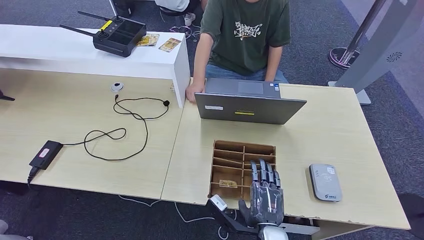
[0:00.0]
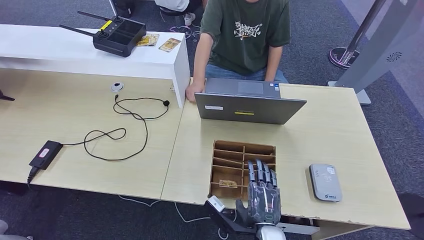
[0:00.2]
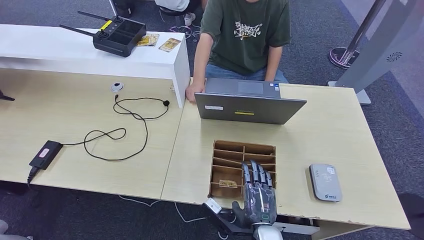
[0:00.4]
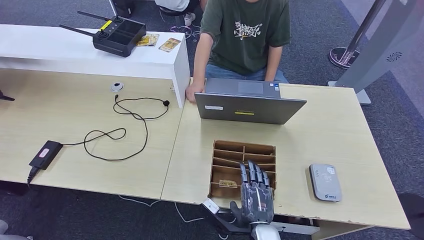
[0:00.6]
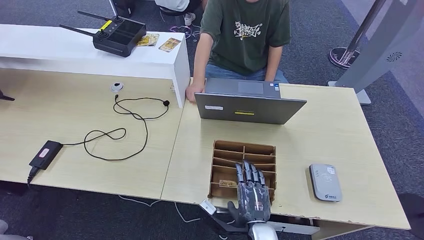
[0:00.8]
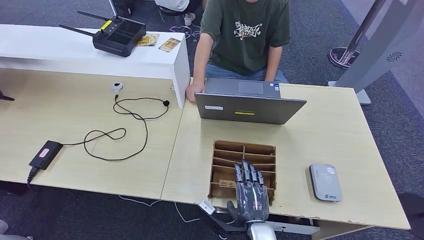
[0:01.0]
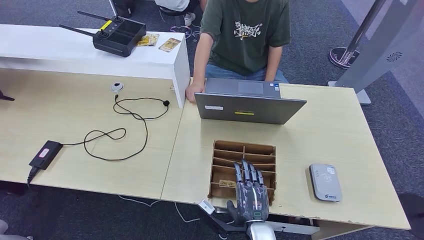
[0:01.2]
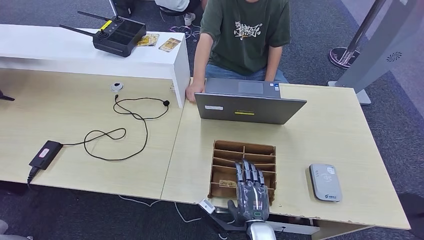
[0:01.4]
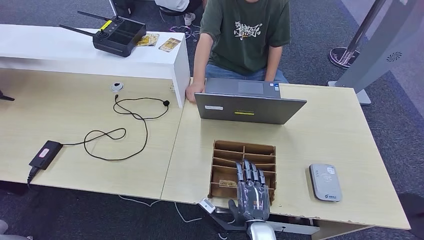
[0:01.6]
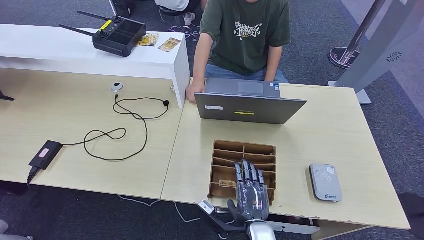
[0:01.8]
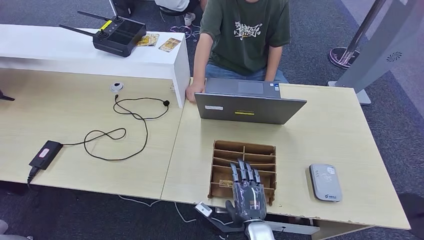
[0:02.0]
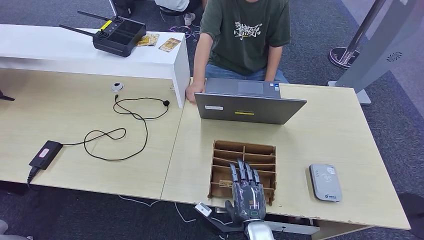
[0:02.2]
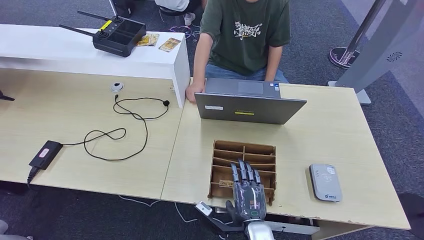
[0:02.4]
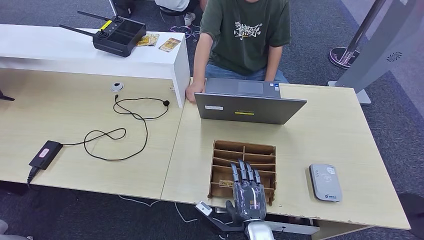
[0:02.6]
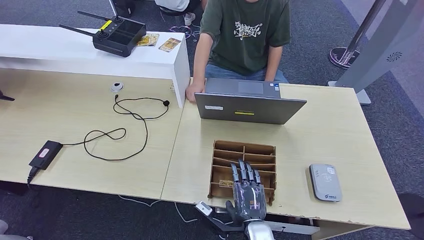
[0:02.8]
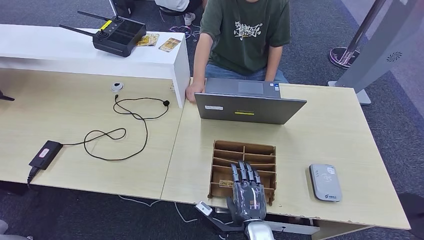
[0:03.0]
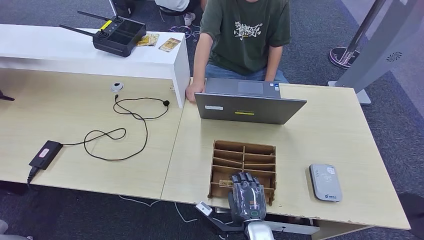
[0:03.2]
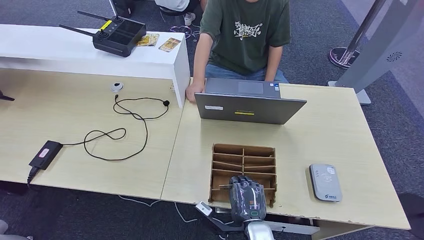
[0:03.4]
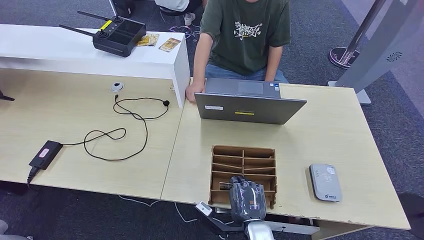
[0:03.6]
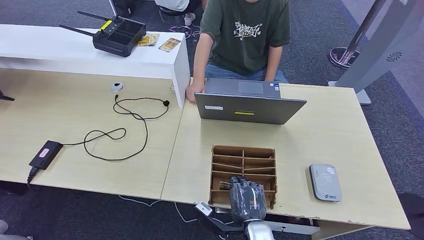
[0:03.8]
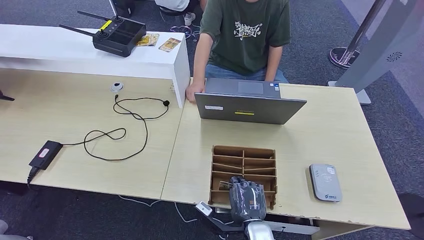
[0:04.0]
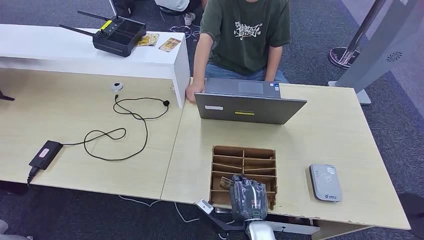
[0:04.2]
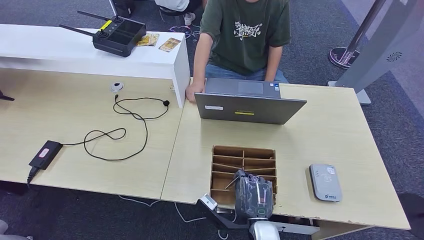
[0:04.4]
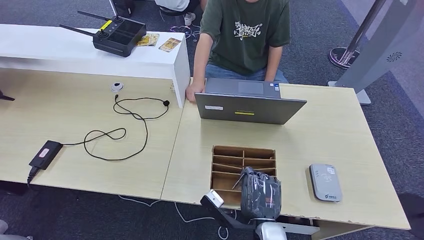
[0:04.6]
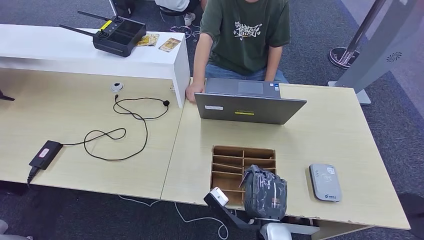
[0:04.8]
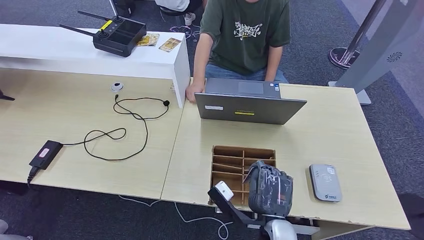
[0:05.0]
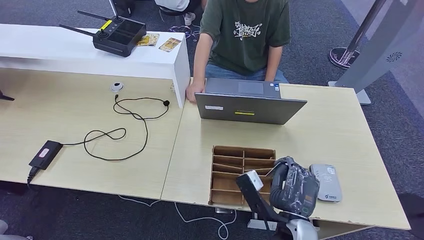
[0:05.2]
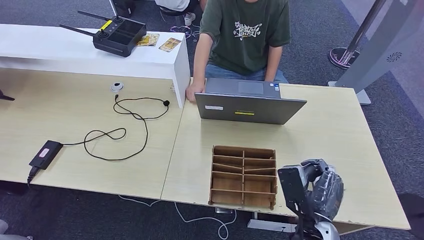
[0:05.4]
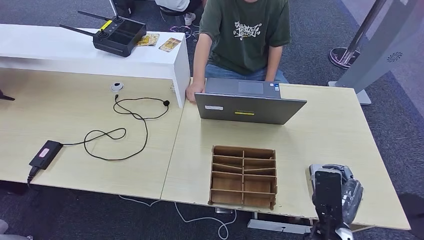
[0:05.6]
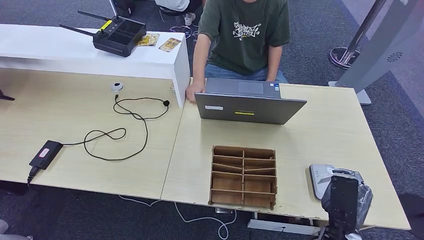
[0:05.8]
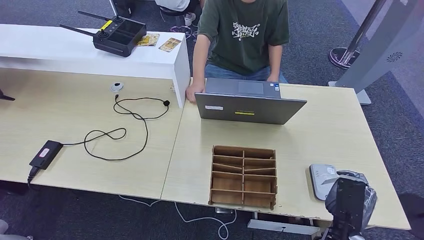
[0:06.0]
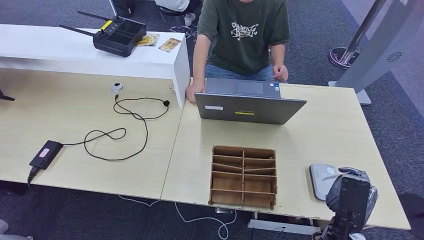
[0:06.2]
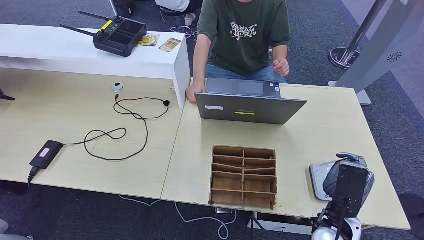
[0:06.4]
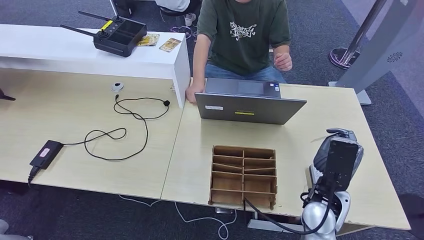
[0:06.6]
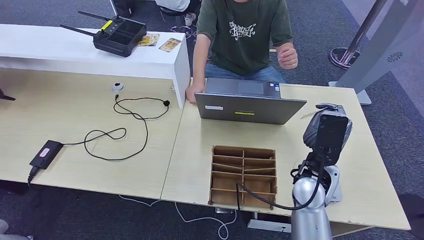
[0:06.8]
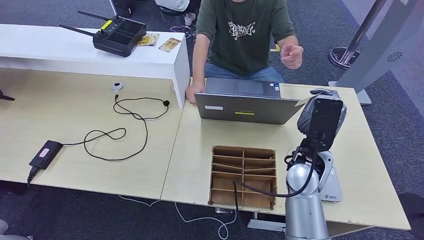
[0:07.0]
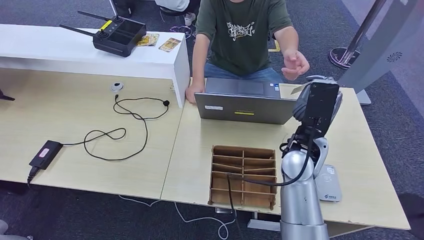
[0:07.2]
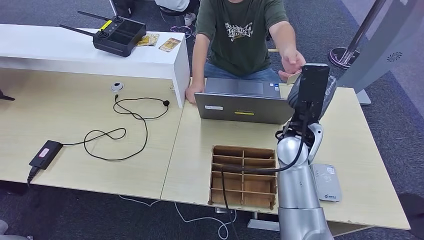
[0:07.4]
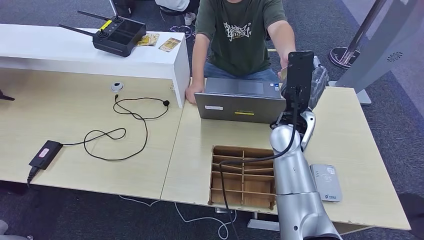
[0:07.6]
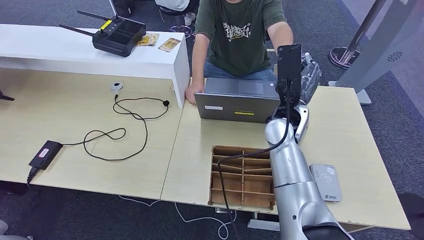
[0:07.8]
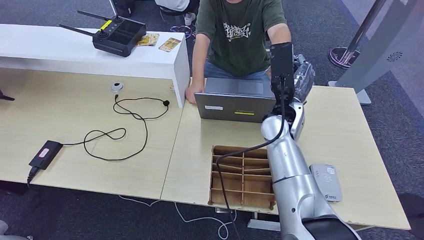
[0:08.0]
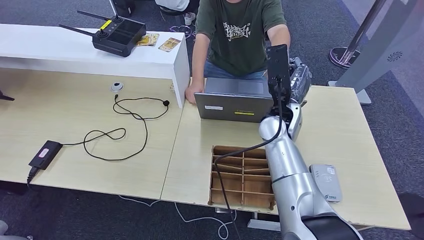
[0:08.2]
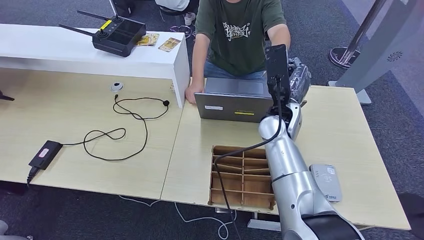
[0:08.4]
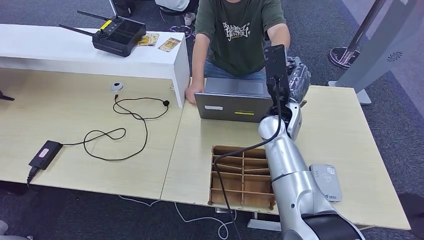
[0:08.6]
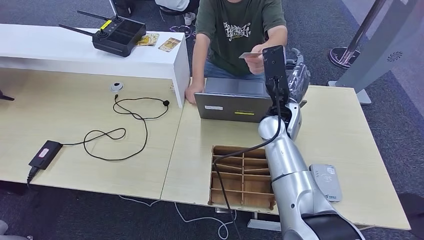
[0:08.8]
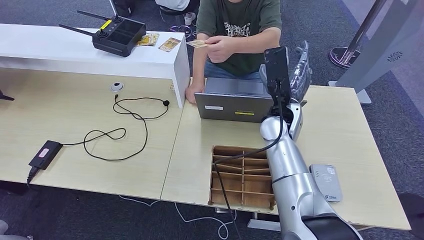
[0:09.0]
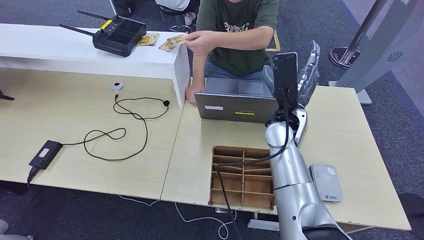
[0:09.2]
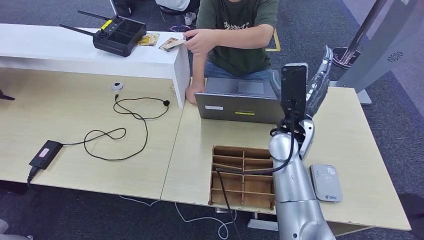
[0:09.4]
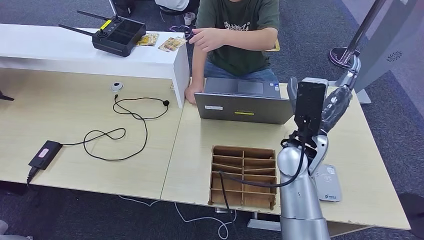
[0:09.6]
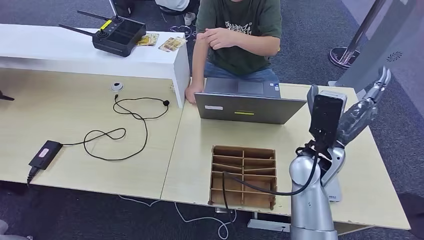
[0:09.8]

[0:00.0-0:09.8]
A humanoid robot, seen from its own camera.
Step, 0:03.4 to 0:06.0: Pick up the room key from the key card box.
Step, 0:06.4 to 0:09.6: Hand the room key to the person.
0:00.0 to 0:01.4: The hands move only a little.
0:01.4 to 0:04.2: Both hands stay about where they are.
0:04.2 to 0:05.6: The right hand goes about 10 cm to the right and upward.
0:05.6 to 0:07.0: The right hand heads forward and upward, covering some 20 cm.
0:07.0 to 0:08.4: The right hand moves forward, roughly 10 cm.
0:08.4 to 0:09.8: The right hand moves backward and to the right, roughly 10 cm.

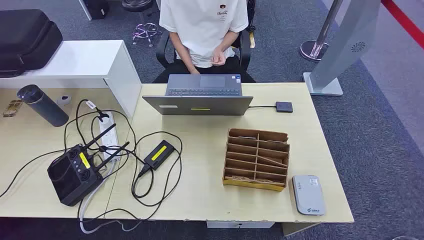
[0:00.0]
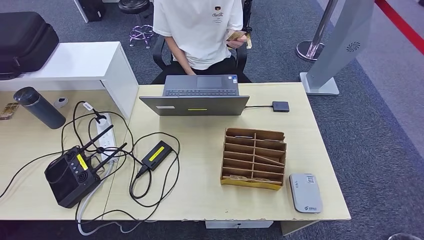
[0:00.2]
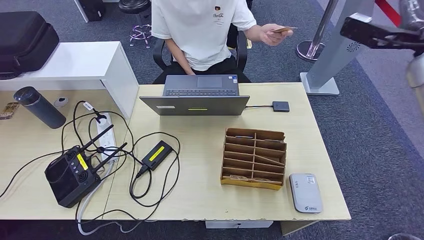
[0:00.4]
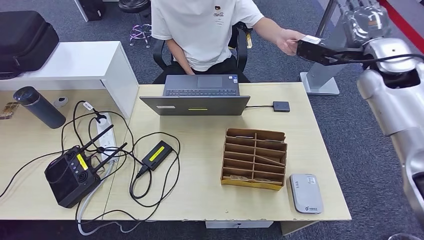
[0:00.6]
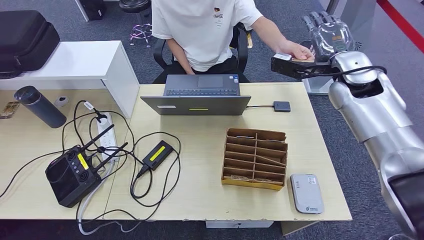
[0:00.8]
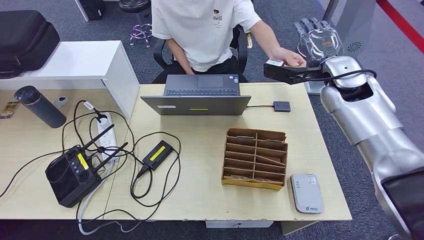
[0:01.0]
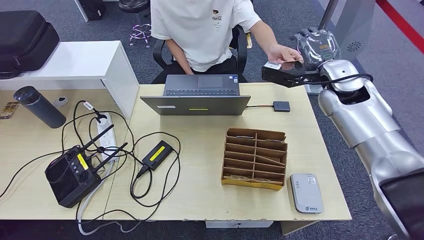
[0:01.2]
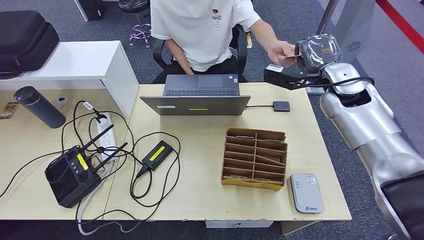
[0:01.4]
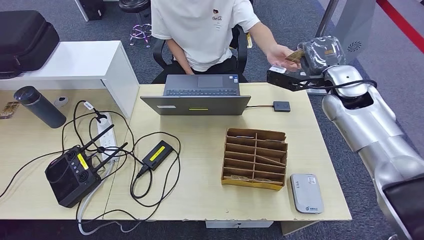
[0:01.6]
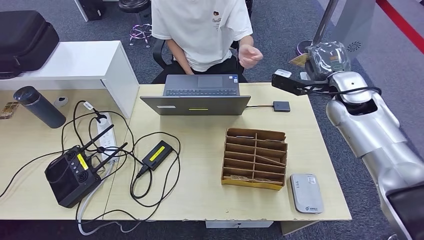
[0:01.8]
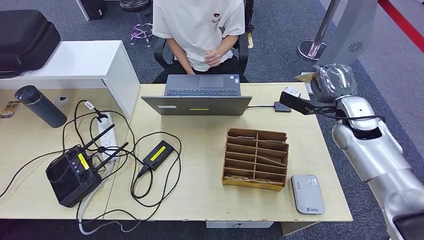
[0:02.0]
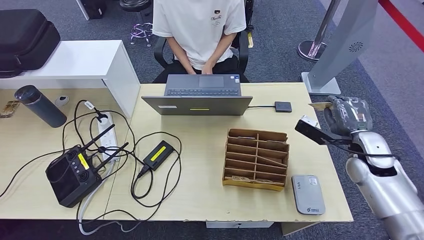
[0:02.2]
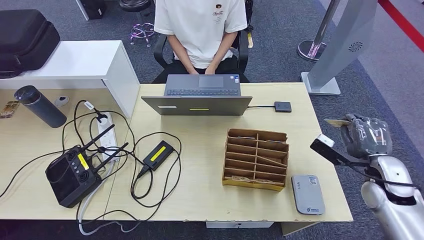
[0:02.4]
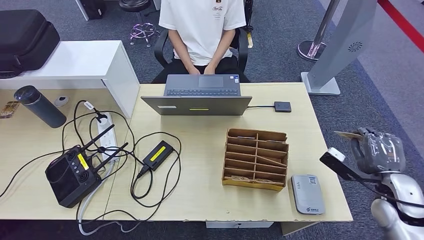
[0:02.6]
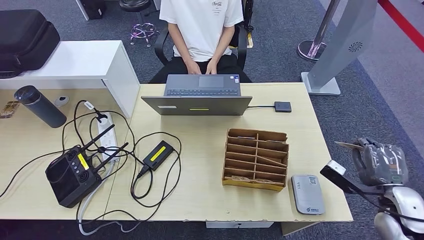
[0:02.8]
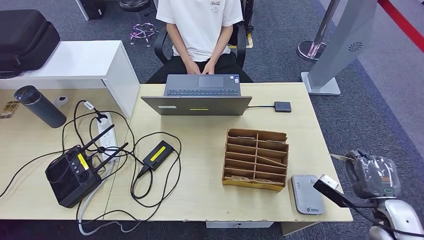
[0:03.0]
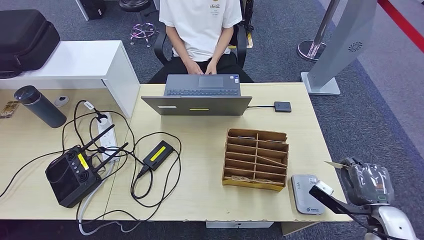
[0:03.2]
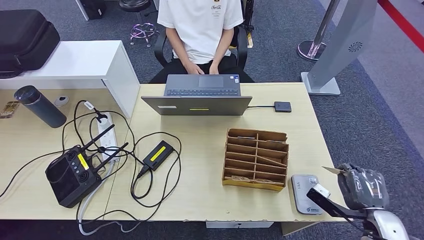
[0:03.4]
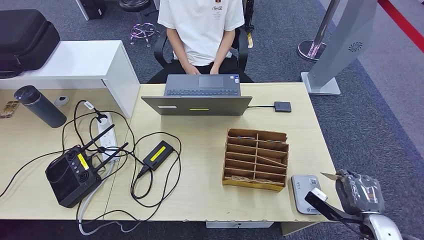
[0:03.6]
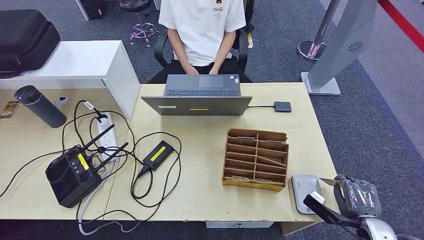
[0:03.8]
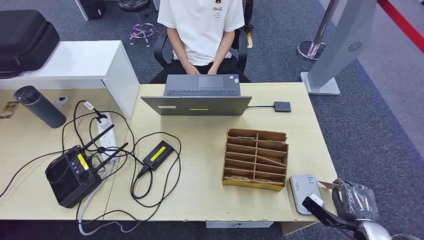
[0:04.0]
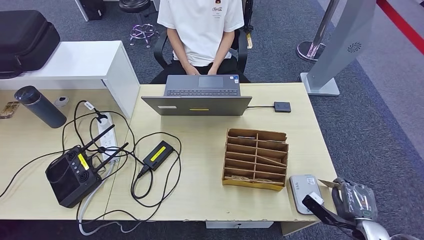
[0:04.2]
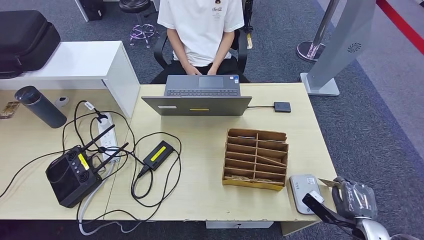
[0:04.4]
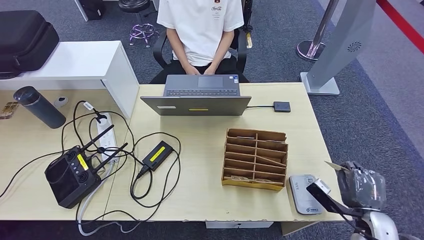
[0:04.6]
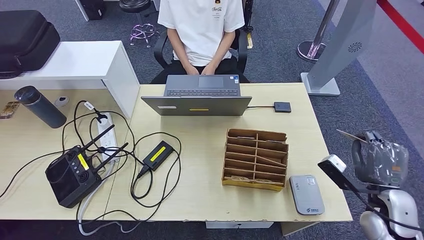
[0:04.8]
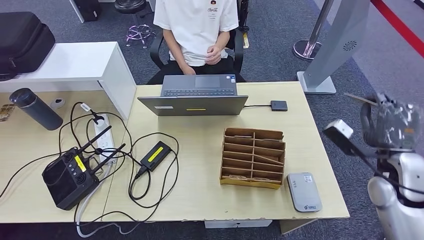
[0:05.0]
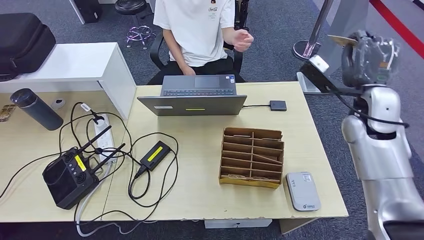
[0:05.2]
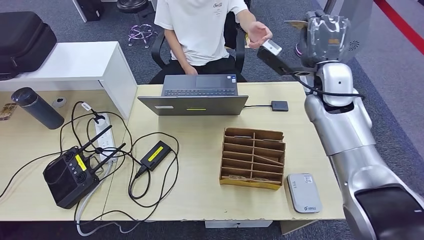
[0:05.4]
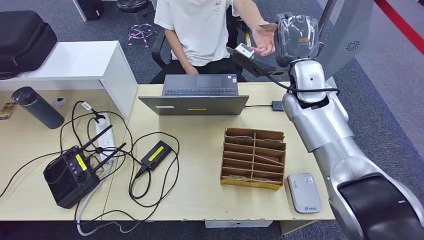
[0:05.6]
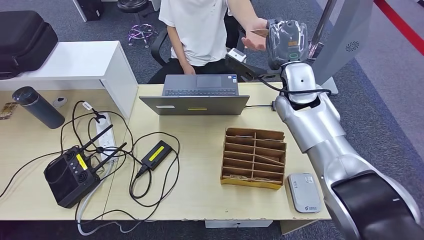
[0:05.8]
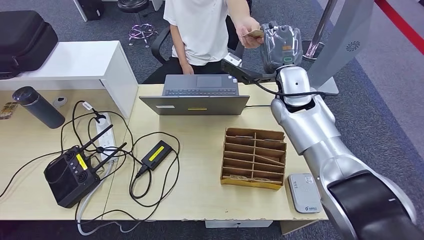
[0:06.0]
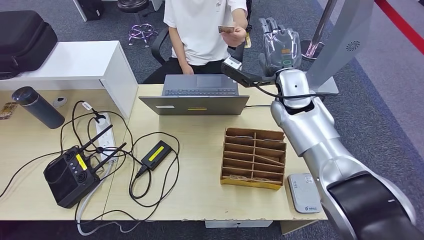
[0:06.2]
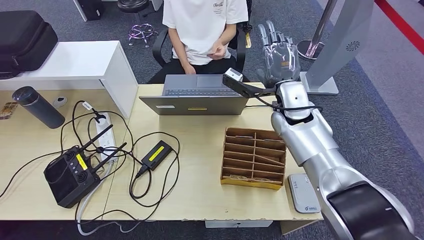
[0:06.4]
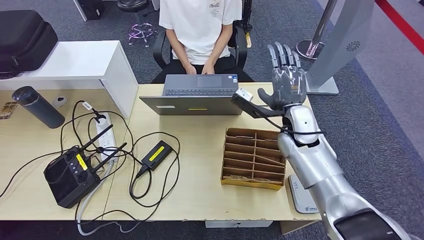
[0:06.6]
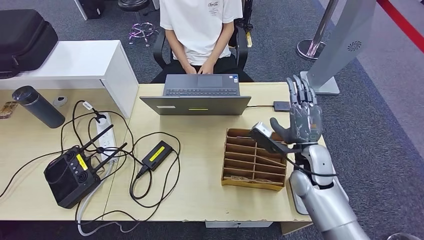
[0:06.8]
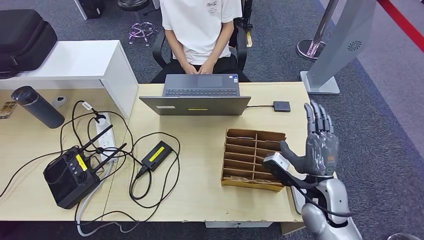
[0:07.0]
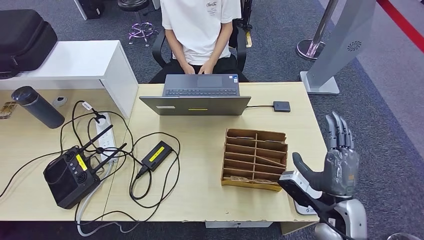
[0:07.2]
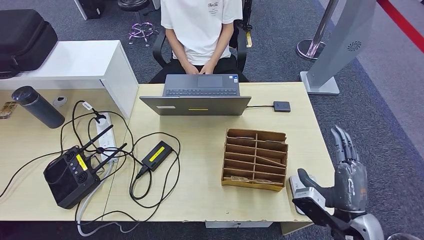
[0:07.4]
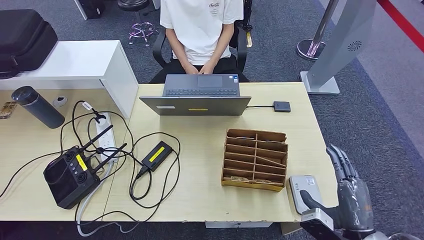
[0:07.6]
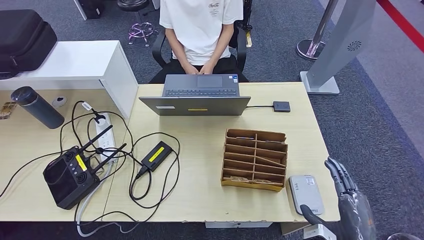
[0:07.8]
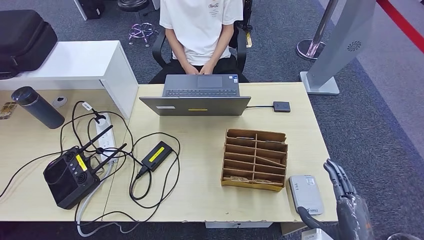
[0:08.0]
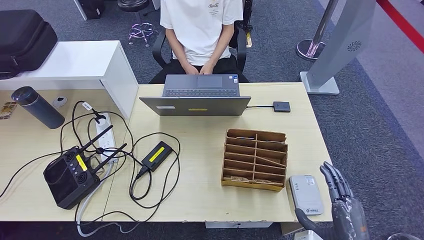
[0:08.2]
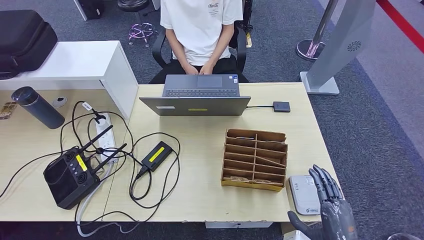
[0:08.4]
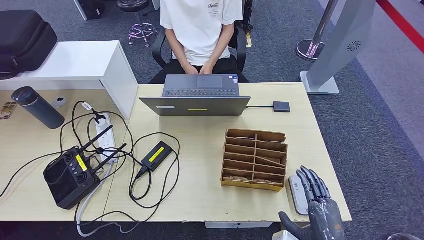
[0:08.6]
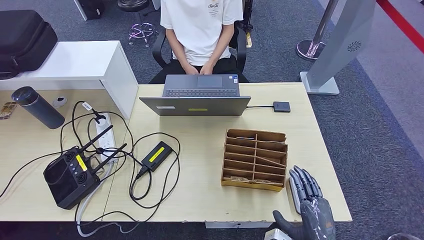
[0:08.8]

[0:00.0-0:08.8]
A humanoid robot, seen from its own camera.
Step, 0:00.0 to 0:02.0: Take the ID card from the person's hand.
Step, 0:02.2 to 0:04.2: Place the ID card on the card reader.
Step, 0:04.4 to 0:05.4: Hand the ID card to the person.
0:03.0 to 0:04.4: The right hand shifts roughly 10 cm downward.
0:07.4 to 0:08.8: The right hand goes some 10 cm backward and downward.
